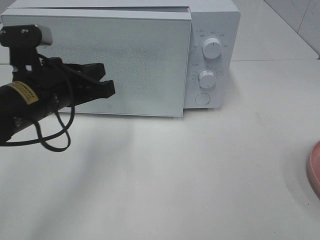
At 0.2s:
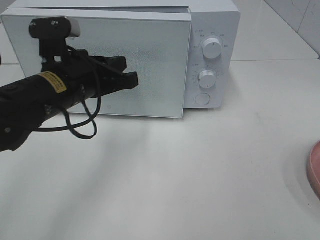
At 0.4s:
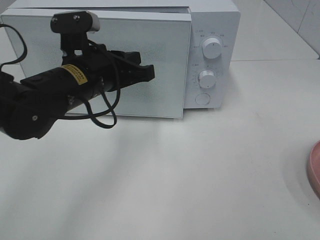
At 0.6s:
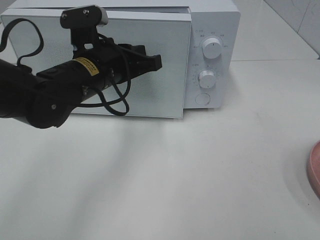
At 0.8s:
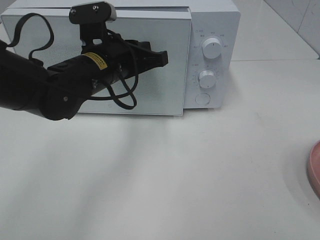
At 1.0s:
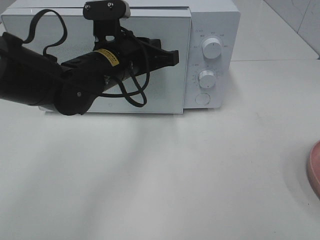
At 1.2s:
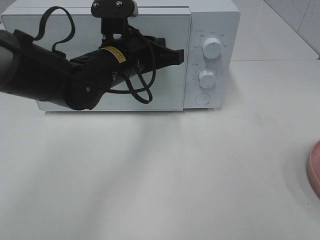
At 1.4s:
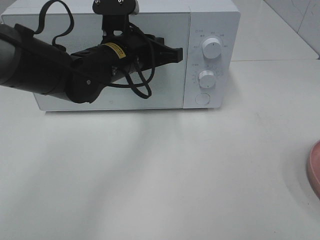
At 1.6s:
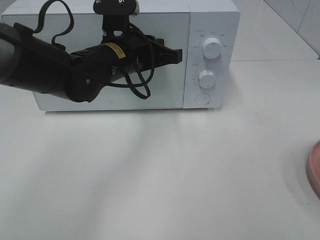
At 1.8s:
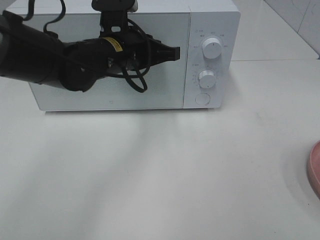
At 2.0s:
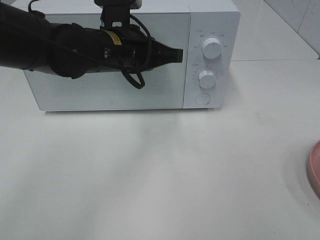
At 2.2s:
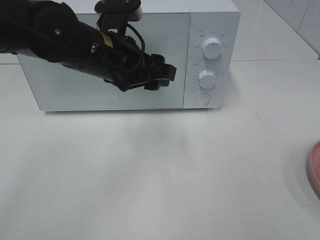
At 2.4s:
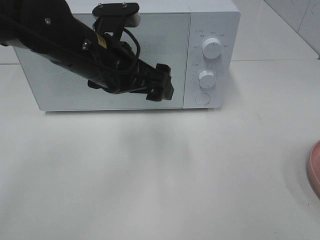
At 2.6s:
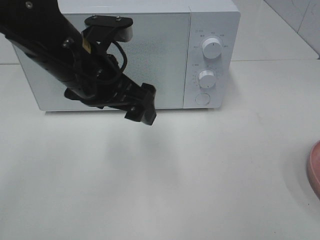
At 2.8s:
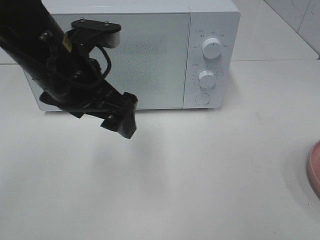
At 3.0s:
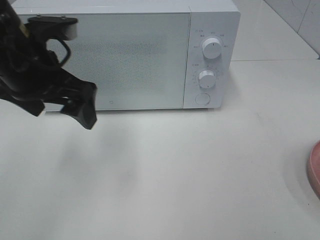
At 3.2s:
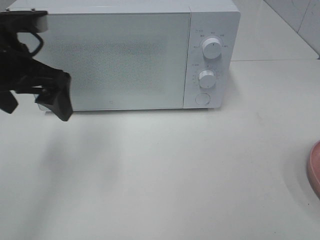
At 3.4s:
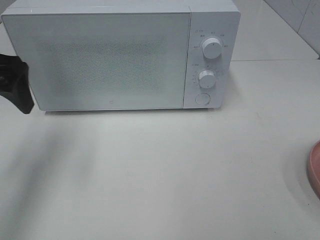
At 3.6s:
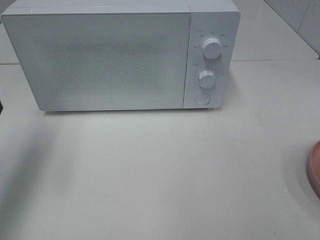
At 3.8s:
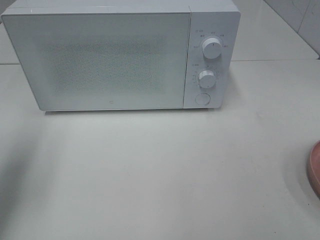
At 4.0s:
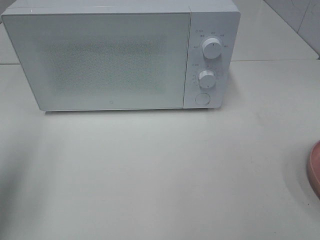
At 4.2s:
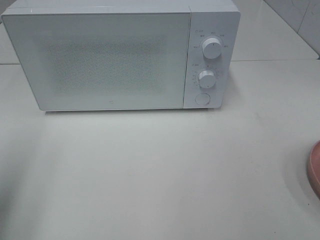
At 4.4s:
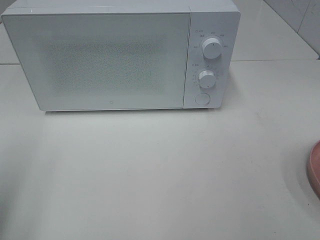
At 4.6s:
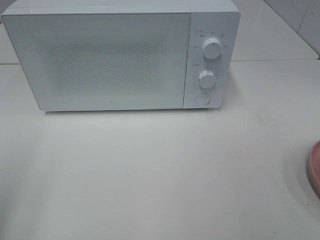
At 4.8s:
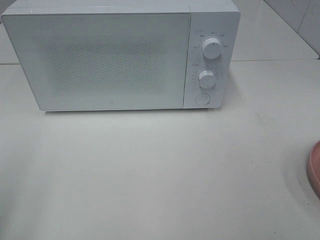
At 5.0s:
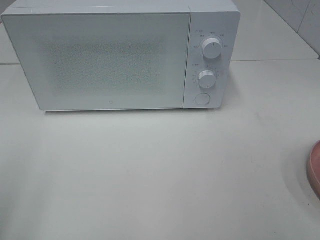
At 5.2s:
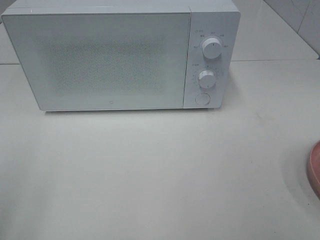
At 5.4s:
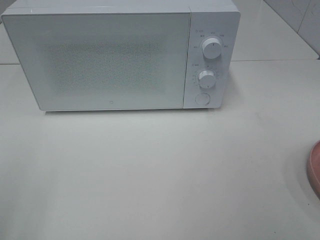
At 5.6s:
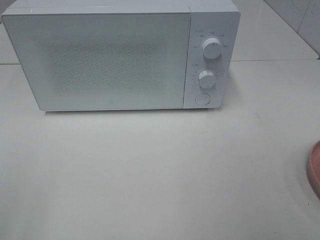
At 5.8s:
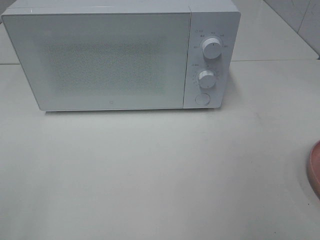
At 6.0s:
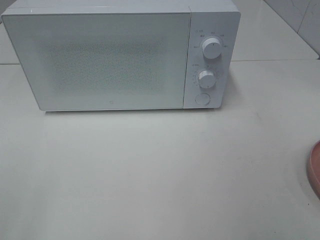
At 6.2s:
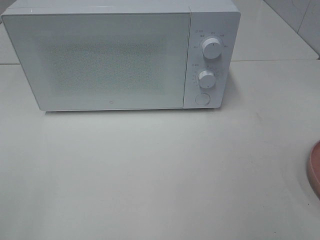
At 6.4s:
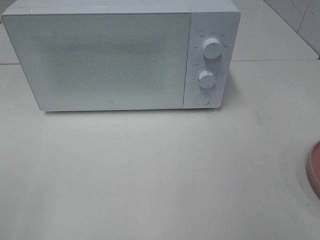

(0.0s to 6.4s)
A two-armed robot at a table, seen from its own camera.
Task of the whole recording: Heat the burger.
0.0s - 1.6s: The left gripper is displaced to the right and forward by some 15 cm.
1.6s - 3.2s: The left gripper shifts some 20 cm to the left, upward and backward, and opens its fingers.
3.2s - 4.8s: The left gripper moves backward and to the left, roughly 25 cm.

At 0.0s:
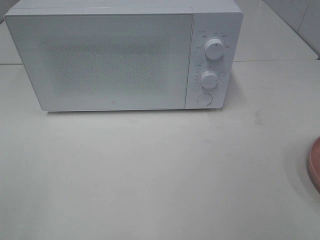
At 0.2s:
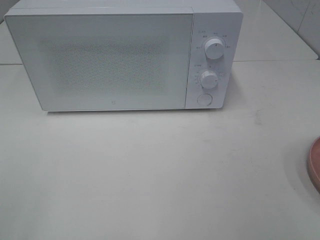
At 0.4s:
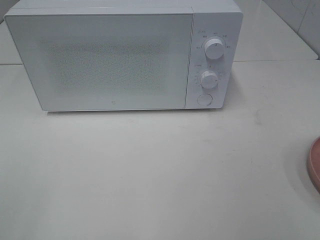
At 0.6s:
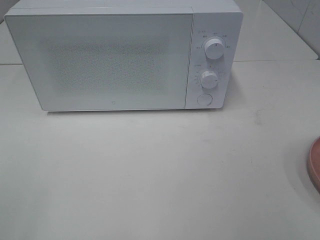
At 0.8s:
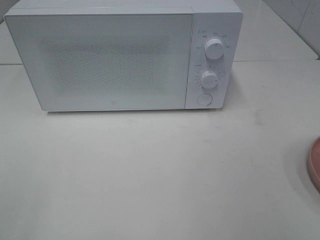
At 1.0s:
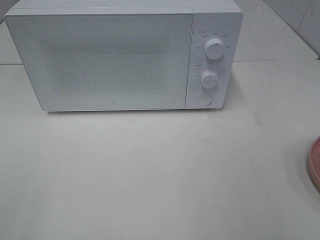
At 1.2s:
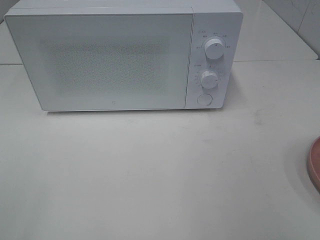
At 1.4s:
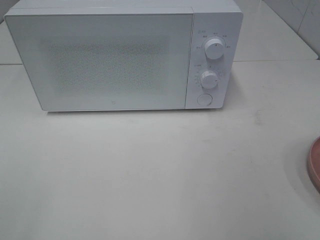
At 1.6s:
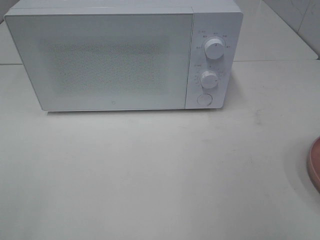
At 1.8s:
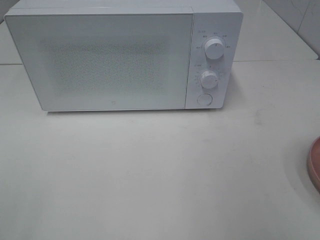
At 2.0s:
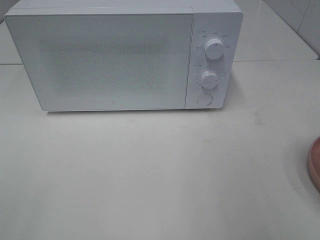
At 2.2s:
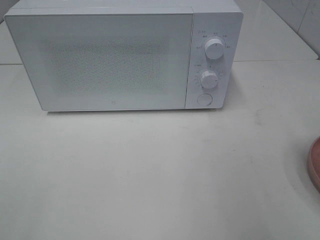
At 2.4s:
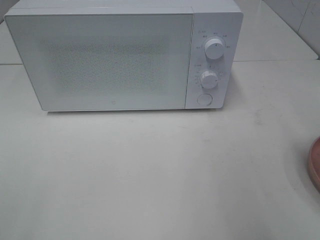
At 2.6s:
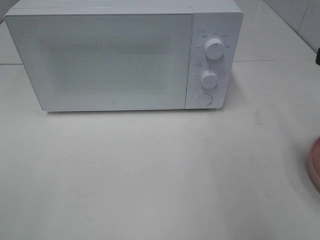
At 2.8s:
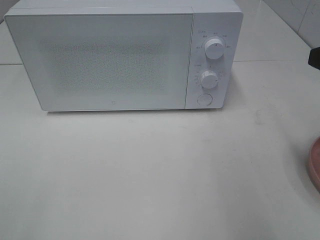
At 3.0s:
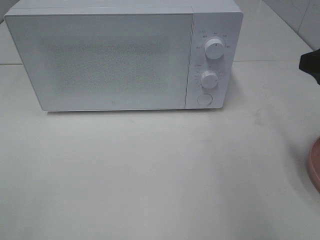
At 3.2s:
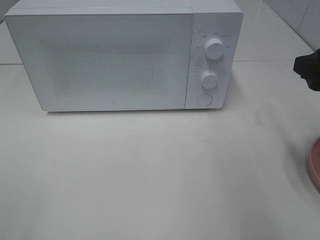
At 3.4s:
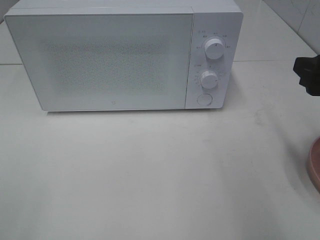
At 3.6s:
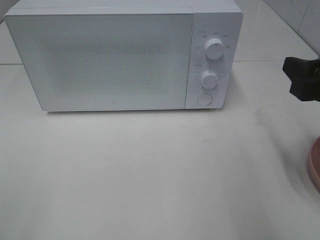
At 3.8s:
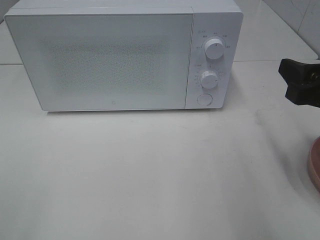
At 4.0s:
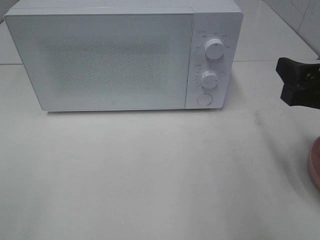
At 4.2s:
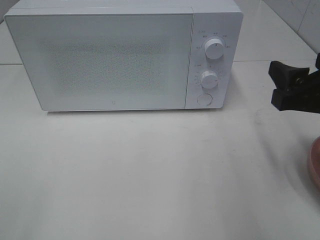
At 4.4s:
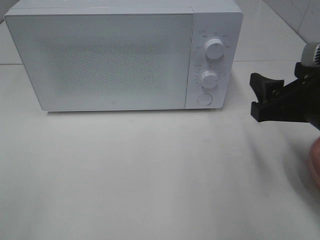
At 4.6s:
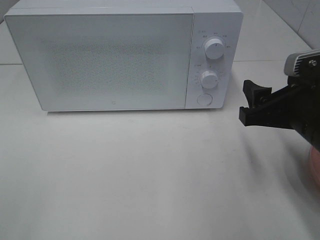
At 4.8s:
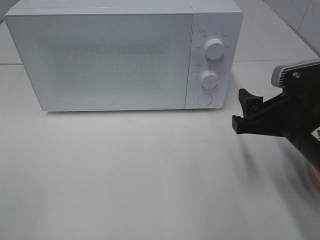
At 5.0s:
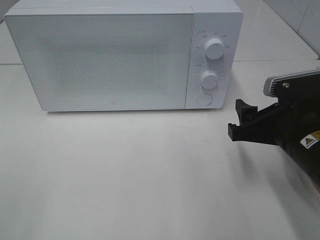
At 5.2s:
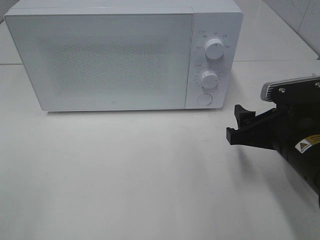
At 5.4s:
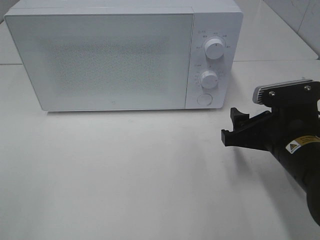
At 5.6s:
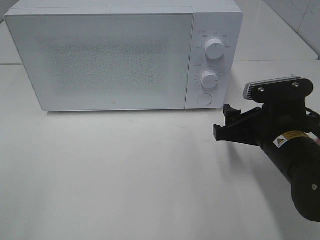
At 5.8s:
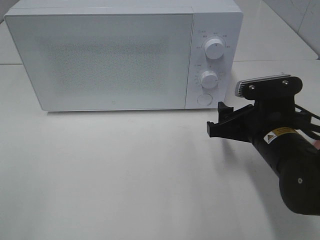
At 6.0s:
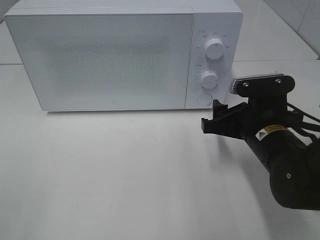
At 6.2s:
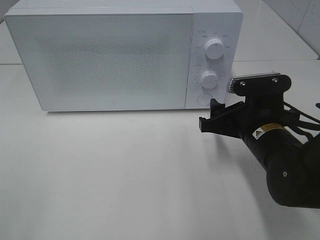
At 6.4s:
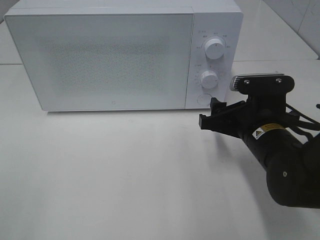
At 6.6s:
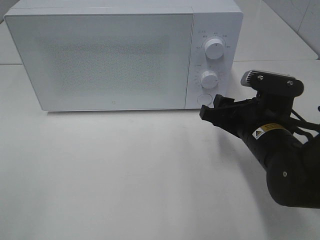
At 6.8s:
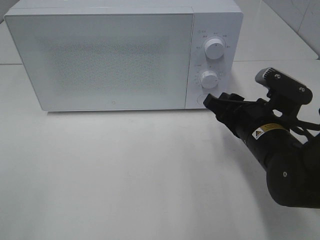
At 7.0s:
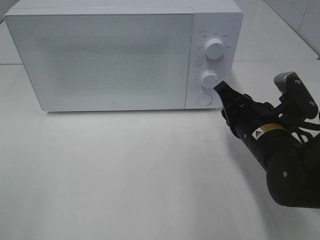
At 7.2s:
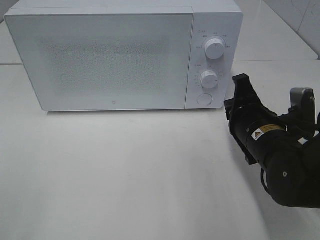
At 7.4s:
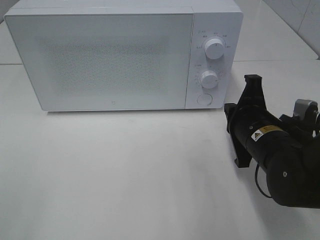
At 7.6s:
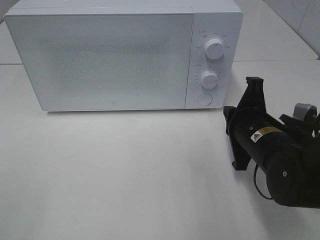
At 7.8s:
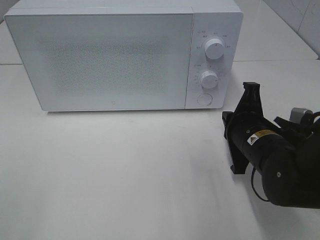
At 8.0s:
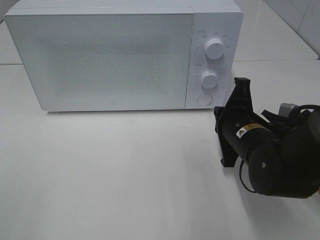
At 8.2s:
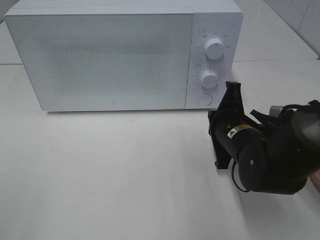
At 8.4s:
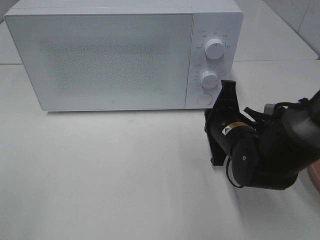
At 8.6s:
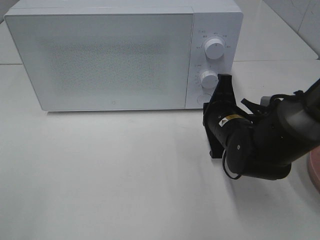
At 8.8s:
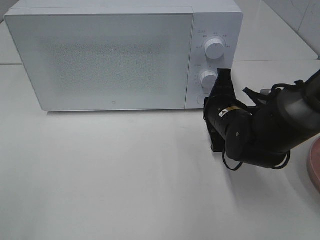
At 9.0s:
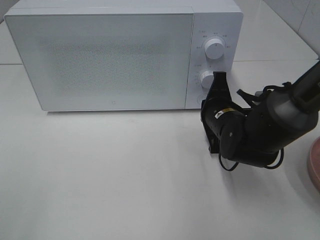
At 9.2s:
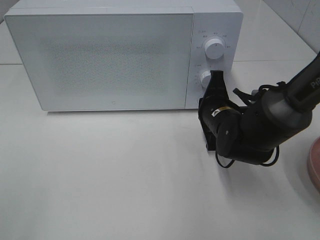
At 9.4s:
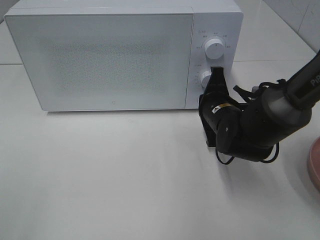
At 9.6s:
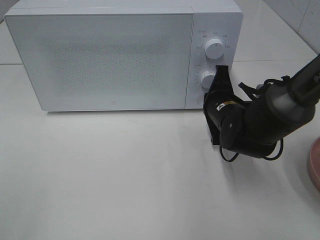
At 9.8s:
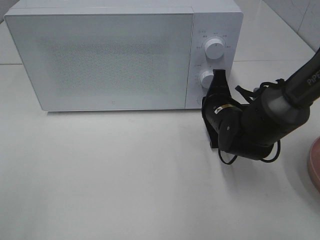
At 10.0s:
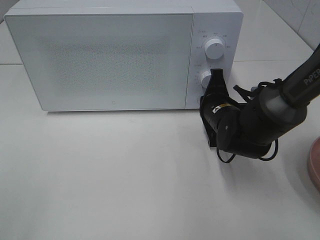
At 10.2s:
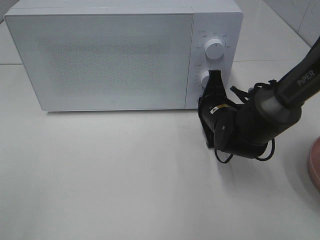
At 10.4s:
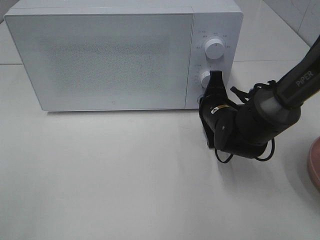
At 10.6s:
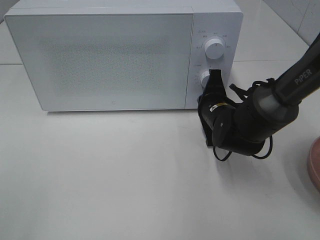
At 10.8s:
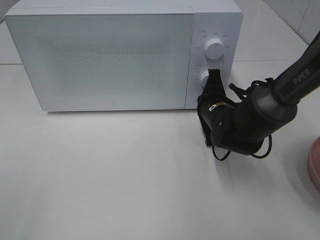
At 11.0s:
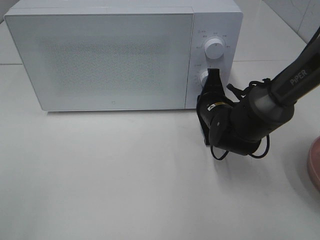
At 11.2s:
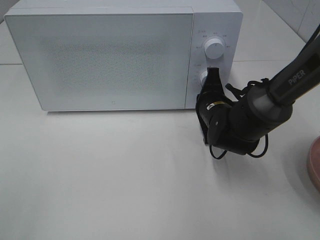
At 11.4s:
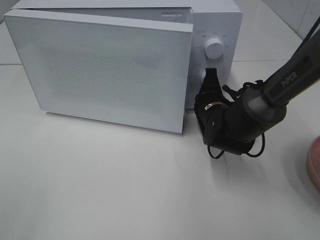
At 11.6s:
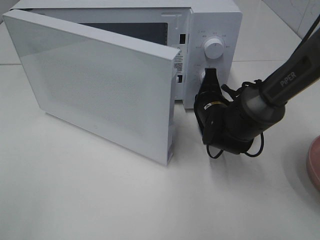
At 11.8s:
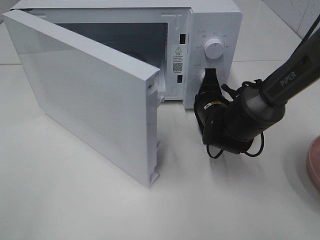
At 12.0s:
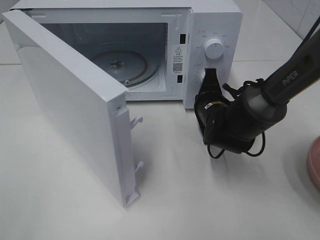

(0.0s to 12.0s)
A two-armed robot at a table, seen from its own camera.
Task of the whole recording: Heat the burger.
1.6s - 3.0s: The right gripper goes roughly 10 cm forward.
3.0s - 4.4s: The right gripper moves downward and to the left, approximately 10 cm.
4.4s - 6.0s: The right gripper shifts some 10 cm downward and to the left.
6.0s - 7.6s: The right gripper closes up.
7.6s - 9.0s: The right gripper shifts about 5 cm forward.
9.0s - 10.4s: The grippers move only a little.

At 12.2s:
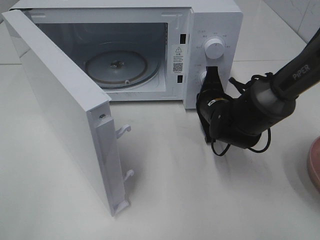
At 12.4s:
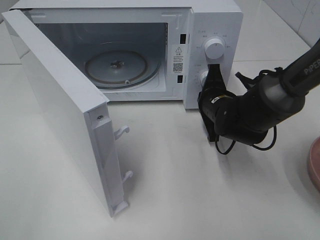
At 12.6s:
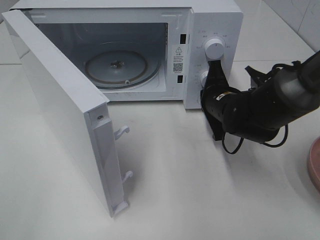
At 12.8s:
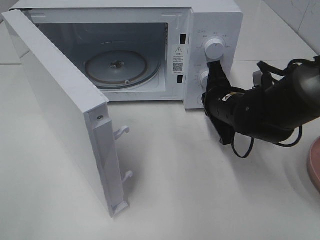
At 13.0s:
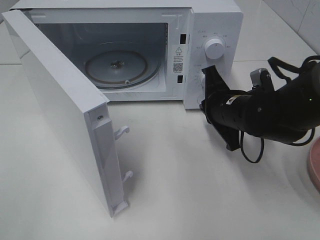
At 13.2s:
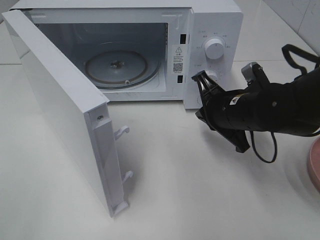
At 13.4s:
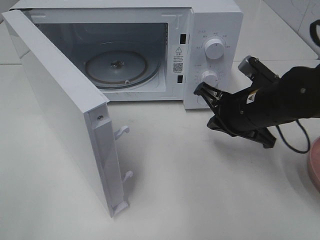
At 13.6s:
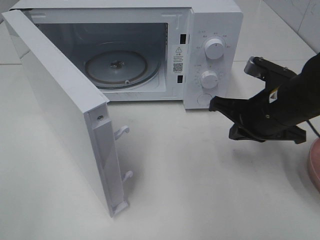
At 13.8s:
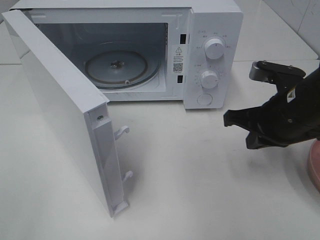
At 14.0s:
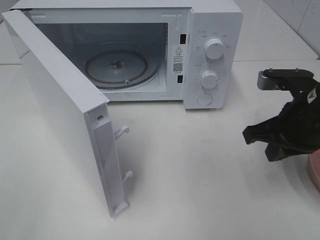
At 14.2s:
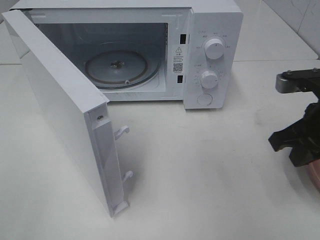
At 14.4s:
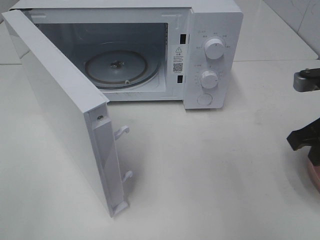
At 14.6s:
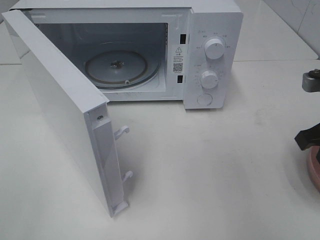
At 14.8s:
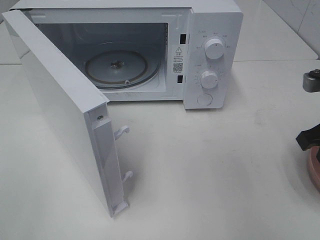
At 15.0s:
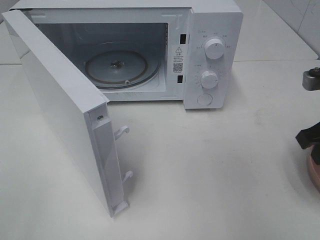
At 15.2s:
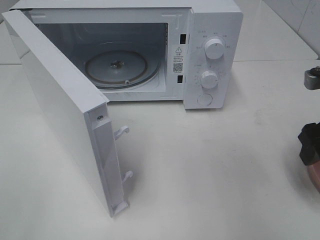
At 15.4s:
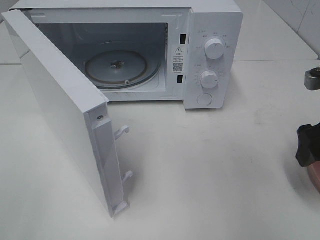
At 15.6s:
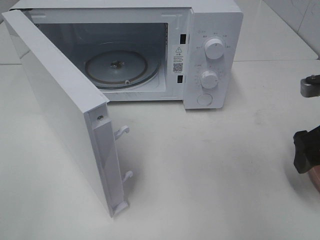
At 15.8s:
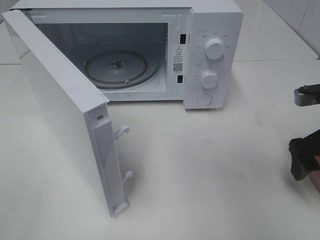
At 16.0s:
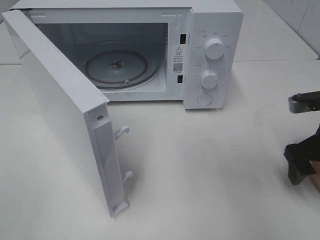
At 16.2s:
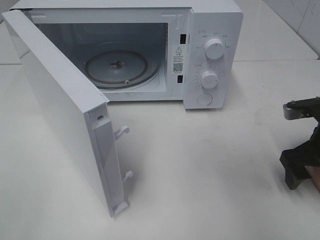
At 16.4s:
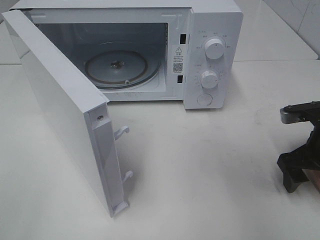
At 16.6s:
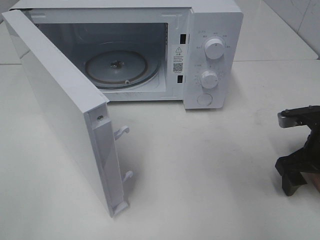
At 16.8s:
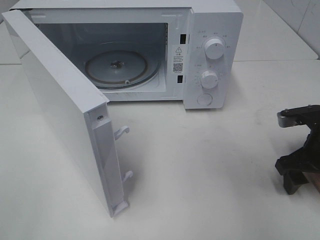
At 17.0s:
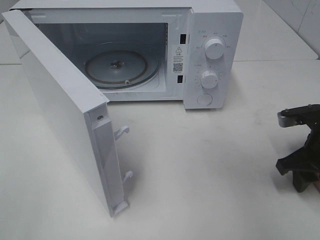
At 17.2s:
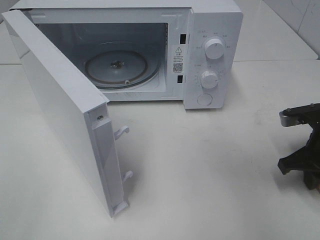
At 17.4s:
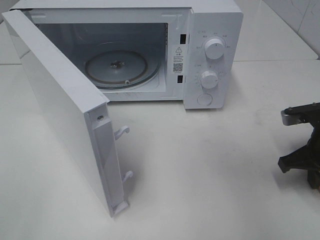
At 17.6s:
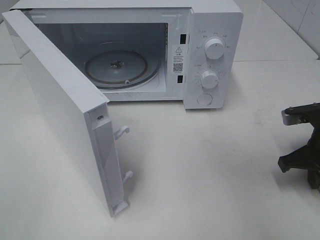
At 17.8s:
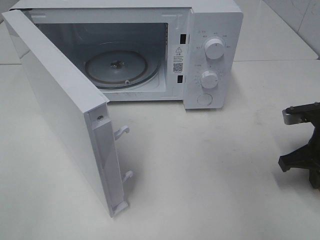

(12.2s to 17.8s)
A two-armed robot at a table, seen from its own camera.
Task of the whole recording: Heat the burger.
Step, 13.0s - 17.6s: Right hand: grab the plate with the hamburger.
12.2s - 13.6s: The right gripper is displaced backward, upward and to the right by about 15 cm.
13.6s - 15.0s: The right gripper travels to the right by approximately 10 cm, and opens.
15.0s - 16.4s: The right gripper travels downward by about 10 cm, and opens.
16.4s - 17.8s: The right gripper closes its fingers.
